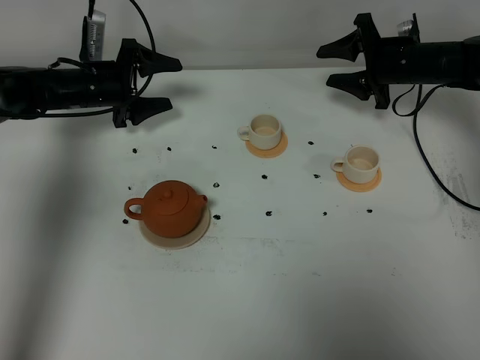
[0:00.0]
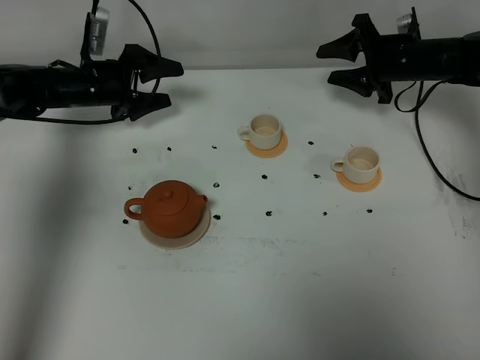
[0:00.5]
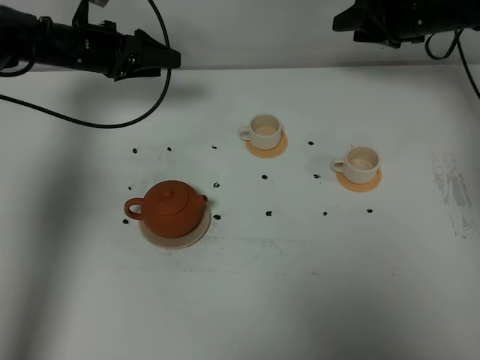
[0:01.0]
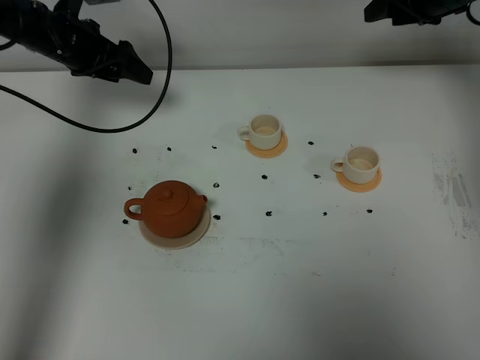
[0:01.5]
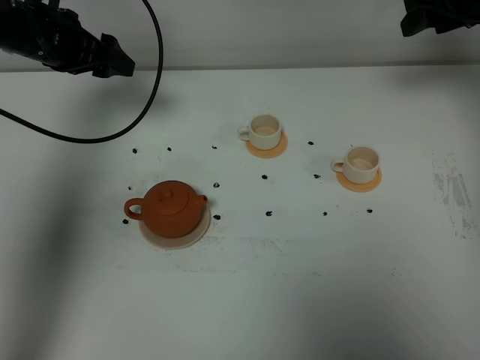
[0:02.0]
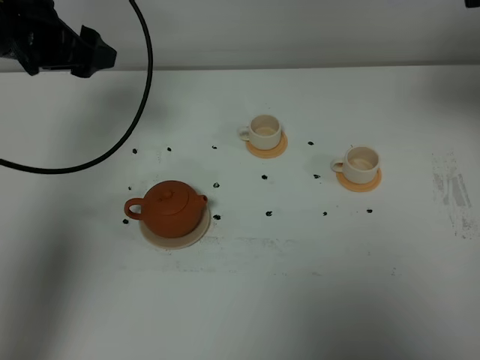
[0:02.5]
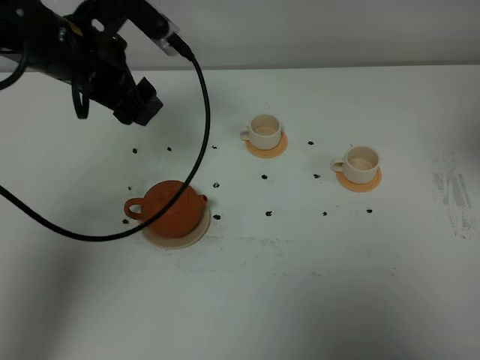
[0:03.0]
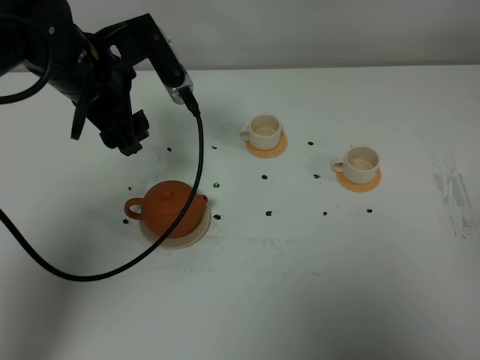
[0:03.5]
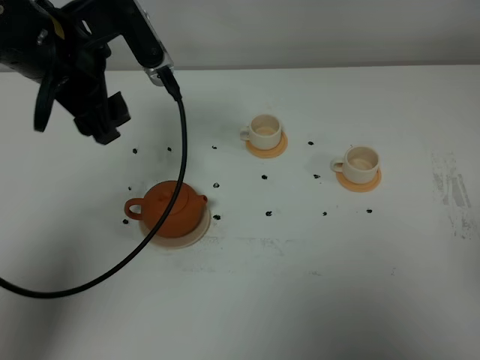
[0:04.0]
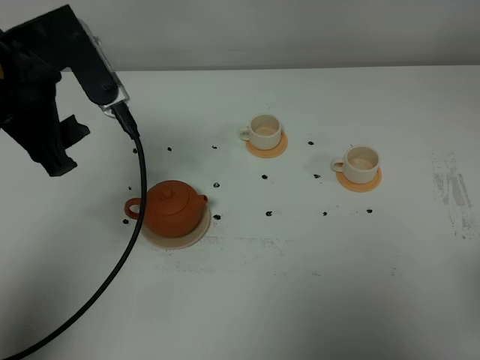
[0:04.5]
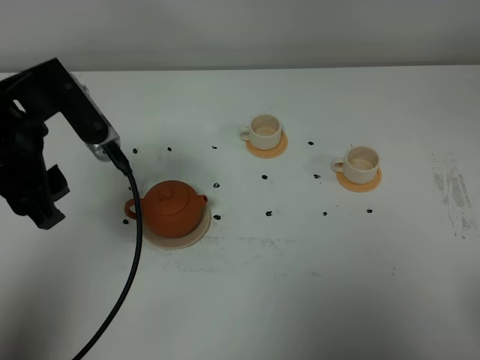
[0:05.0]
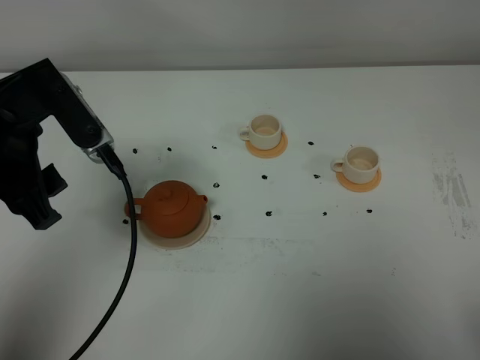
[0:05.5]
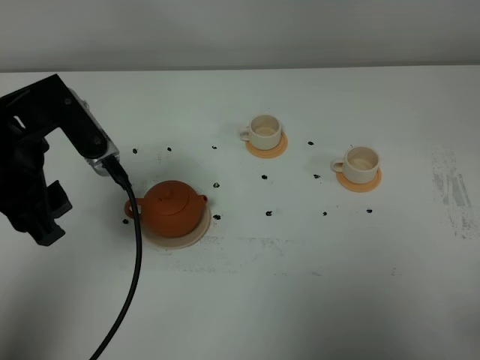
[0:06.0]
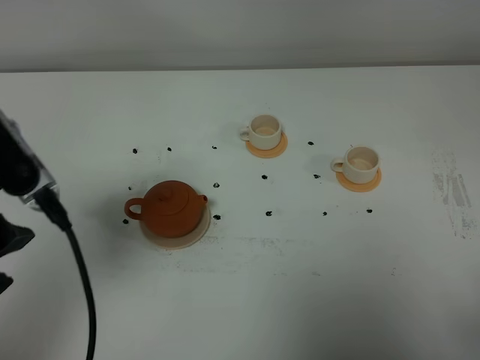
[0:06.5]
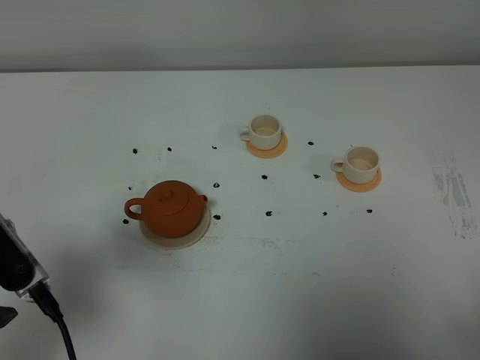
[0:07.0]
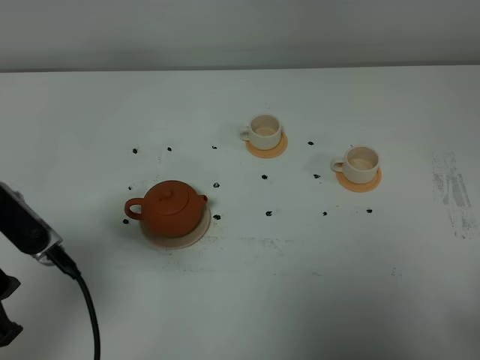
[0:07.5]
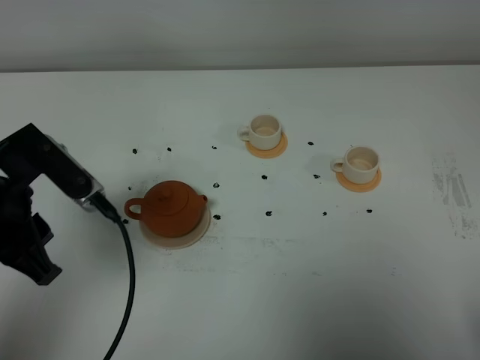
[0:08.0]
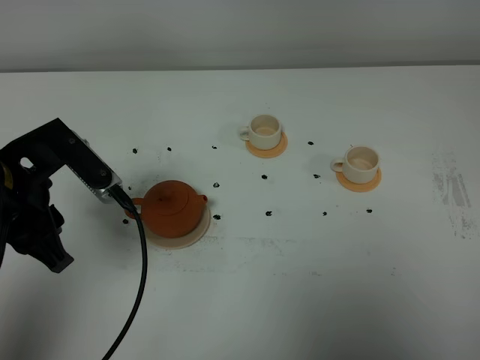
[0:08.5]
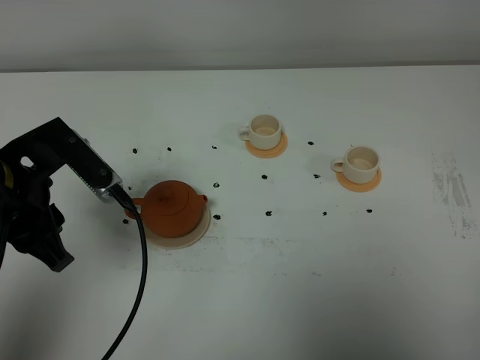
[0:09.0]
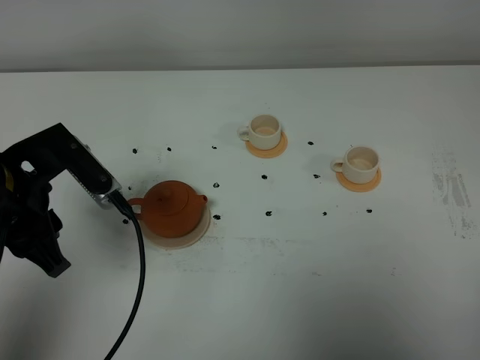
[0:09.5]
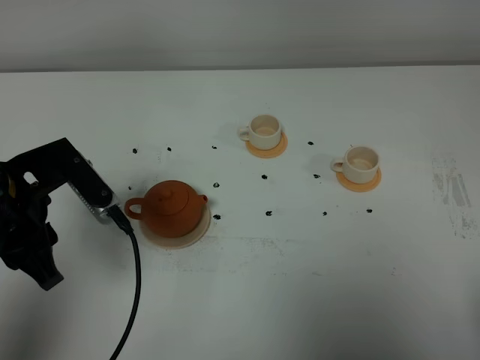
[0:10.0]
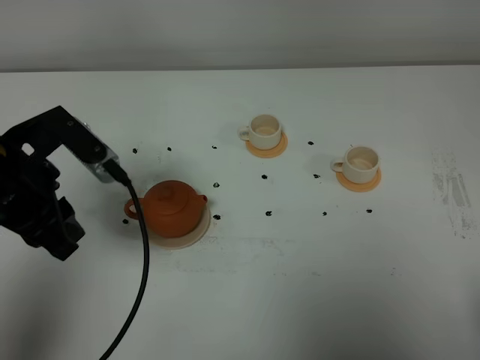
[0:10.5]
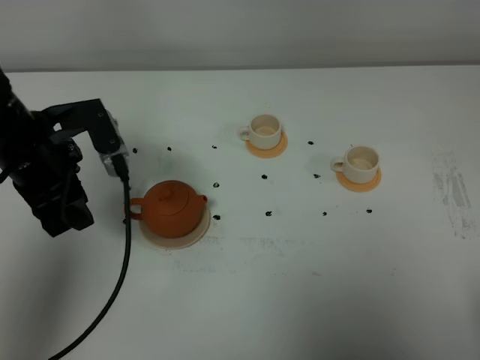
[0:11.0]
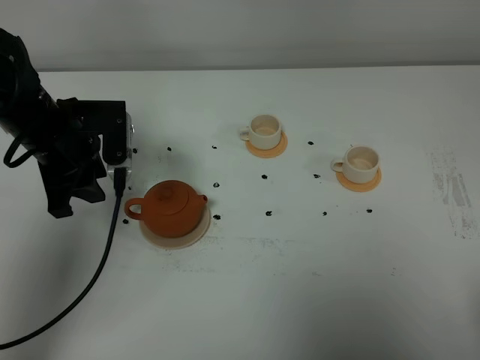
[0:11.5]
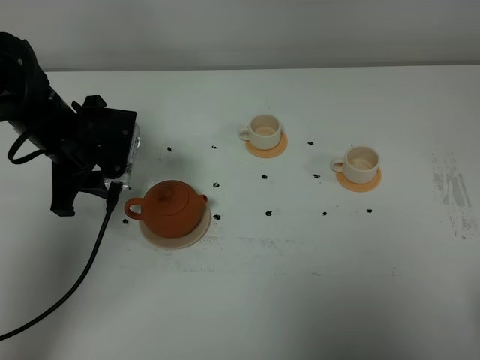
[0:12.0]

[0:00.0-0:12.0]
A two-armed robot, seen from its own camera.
Task of the whole recording: grasp the brown teapot and pour the tea into the two white teacups one by one, put the brown teapot back in its original place.
0:00.0 to 0:02.0: The two grippers go approximately 15 cm upward.
0:02.0 to 0:04.0: The right gripper travels backward by roughly 40 cm, while the left gripper goes some 15 cm backward, to the right and upward.
0:04.0 to 0:06.0: The left gripper moves backward, roughly 10 cm; the right gripper moves downward and backward, roughly 10 cm.
0:06.0 to 0:08.0: The left gripper travels backward and back again, approximately 10 cm each way.
0:08.0 to 0:10.0: There are only small adjustments of the grippers.
0:10.0 to 0:12.0: The left gripper travels forward by about 15 cm.

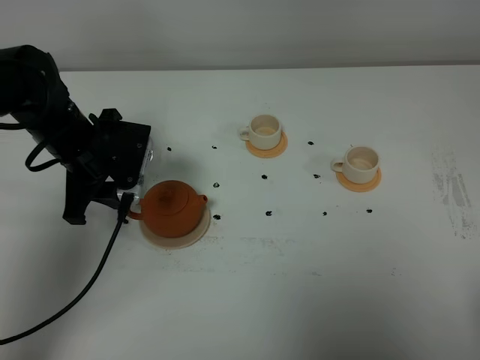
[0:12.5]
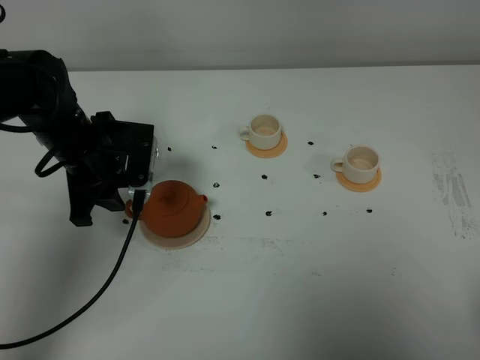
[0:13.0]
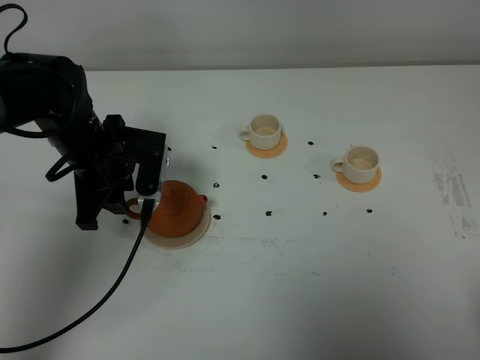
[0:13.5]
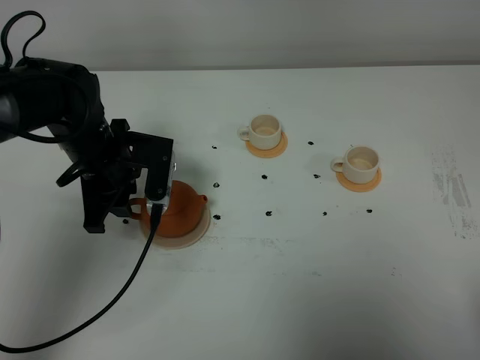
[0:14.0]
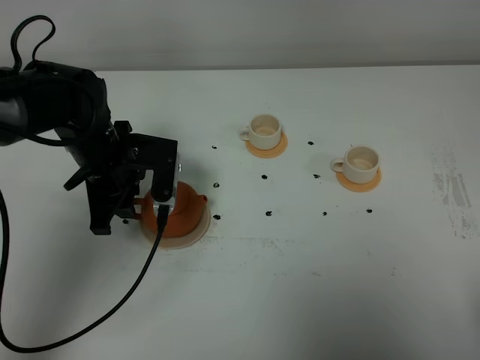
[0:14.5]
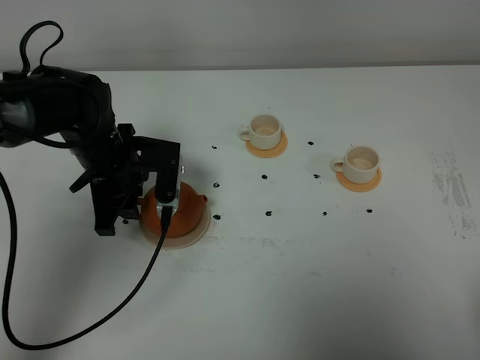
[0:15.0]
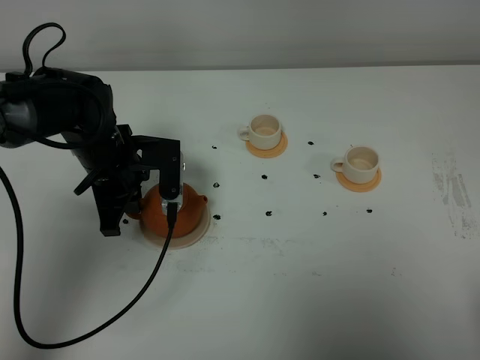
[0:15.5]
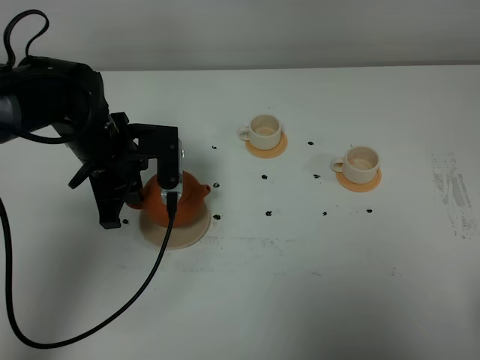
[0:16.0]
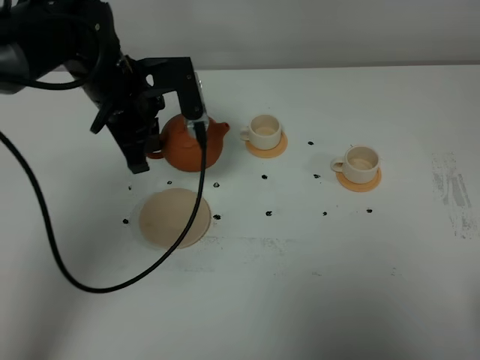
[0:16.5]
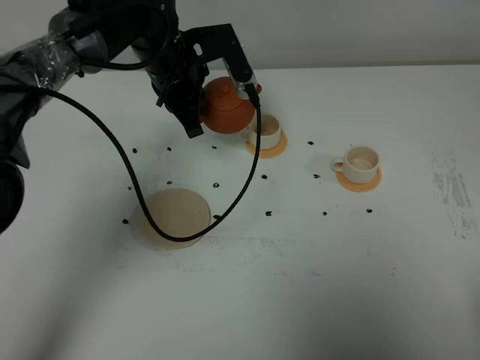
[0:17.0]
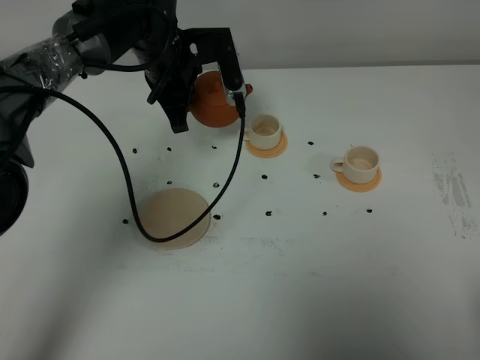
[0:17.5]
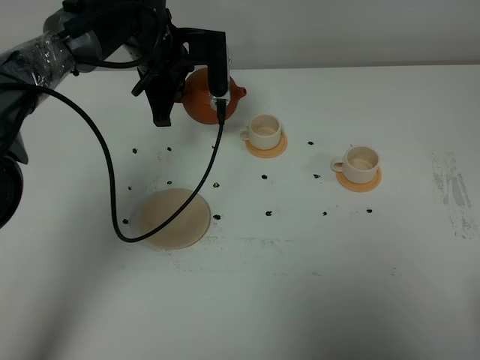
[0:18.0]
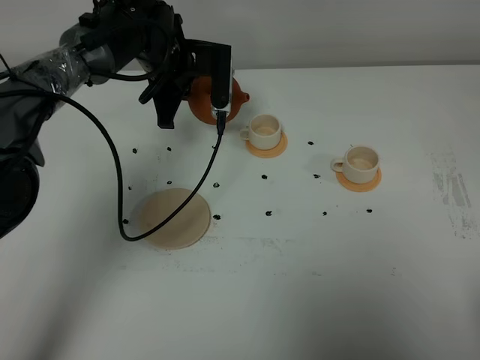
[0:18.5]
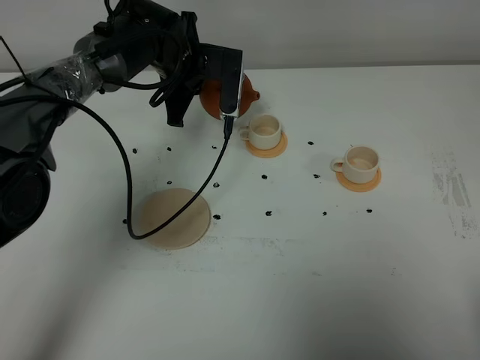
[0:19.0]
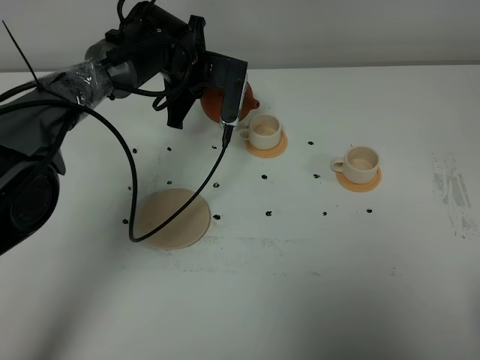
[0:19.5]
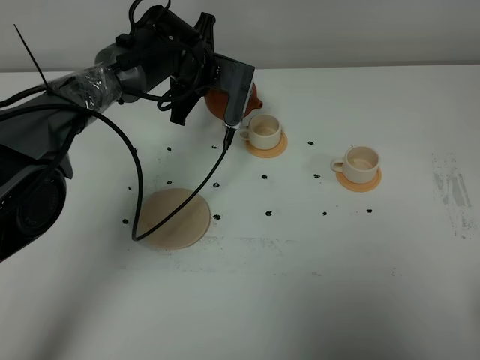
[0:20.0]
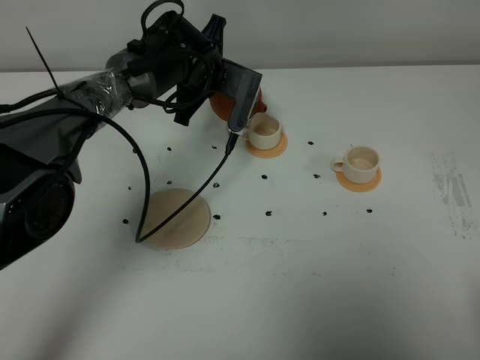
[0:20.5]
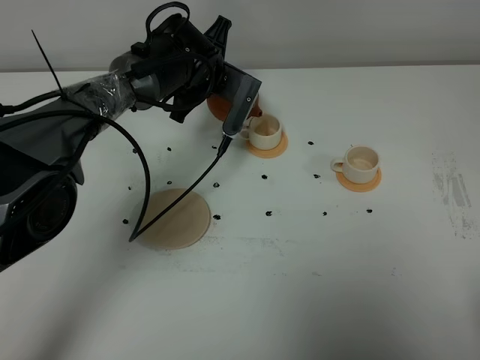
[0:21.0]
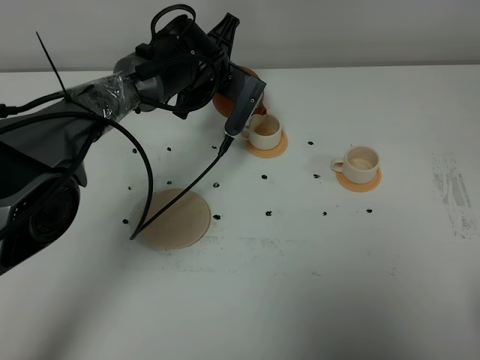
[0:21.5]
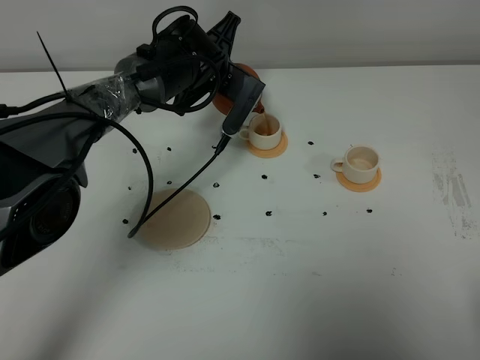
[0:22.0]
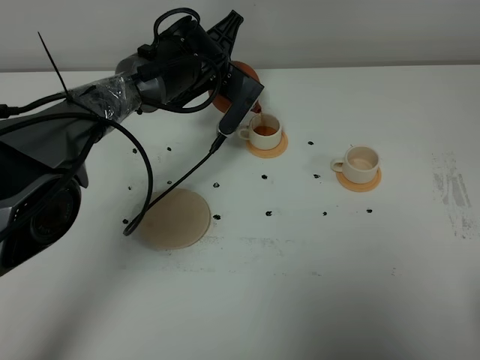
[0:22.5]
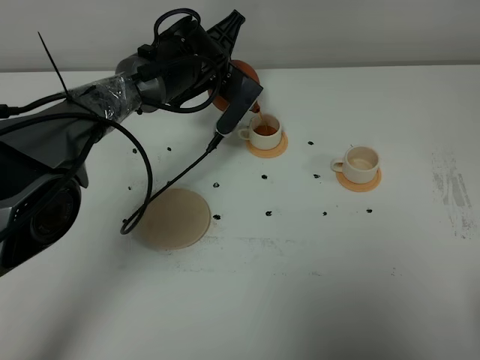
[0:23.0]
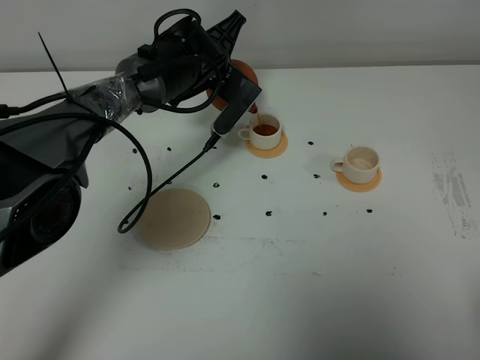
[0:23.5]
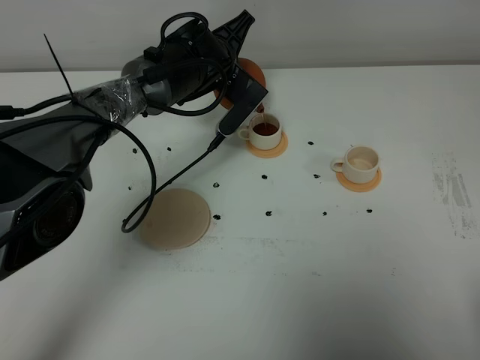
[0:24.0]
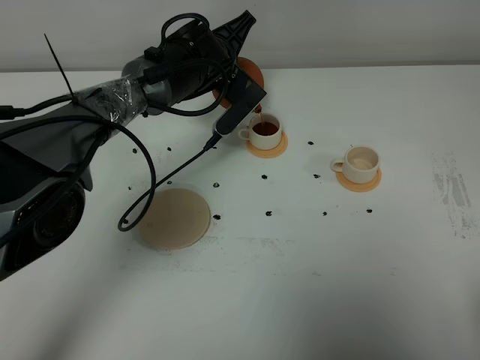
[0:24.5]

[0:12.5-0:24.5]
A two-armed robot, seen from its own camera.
Task of the whole recording: grasp the brown teapot and pour the tea into the two white teacups one by one, put the brown teapot back in its original place.
Step, 0:12.5 to 0:15.5: Pick up the teapot with the left gripper.
0:12.5 to 0:14.5: The grippers move only a little.
0:14.5 to 0:16.5: The left gripper moves upward, approximately 5 cm, and closes up.
0:16.5 to 0:18.5: The left gripper shifts about 10 cm forward.
0:20.5 to 0:22.5: The grippers stay close to where they were, moving slightly.
0:22.5 to 0:24.5: There are only small adjustments of the grippers.

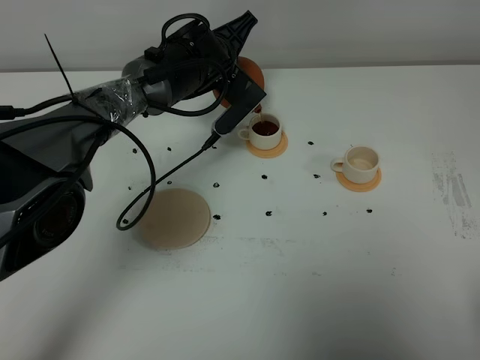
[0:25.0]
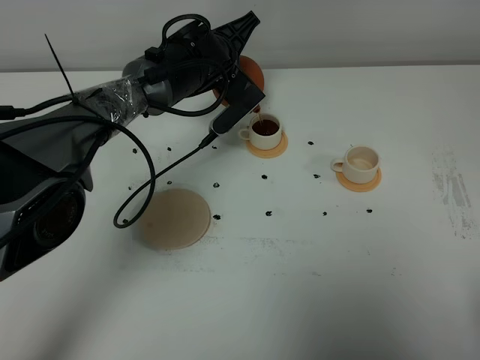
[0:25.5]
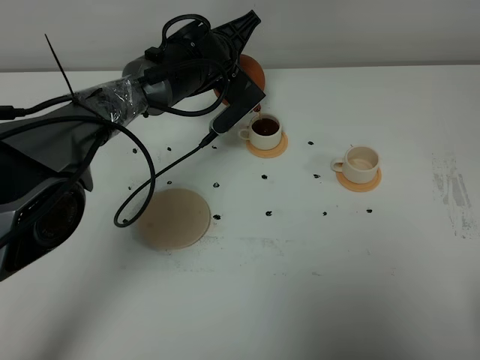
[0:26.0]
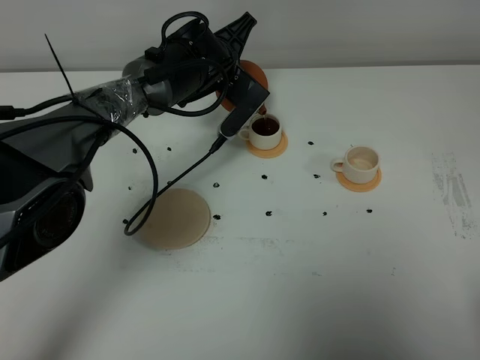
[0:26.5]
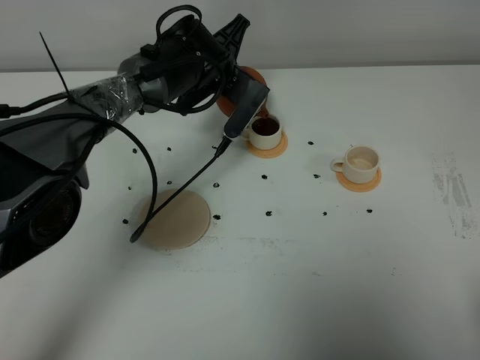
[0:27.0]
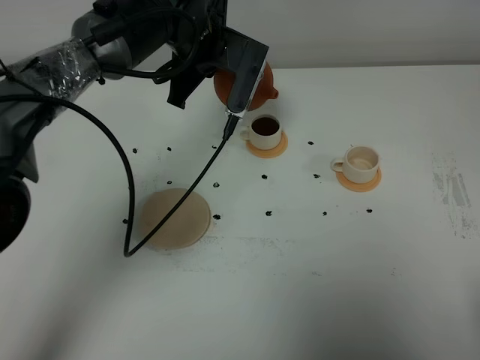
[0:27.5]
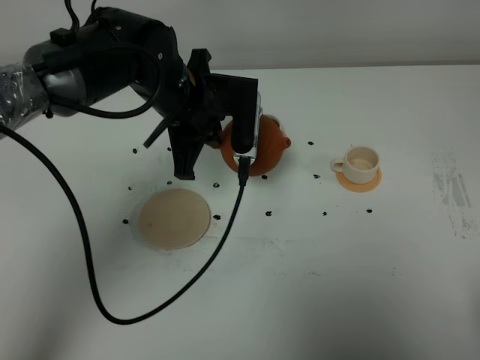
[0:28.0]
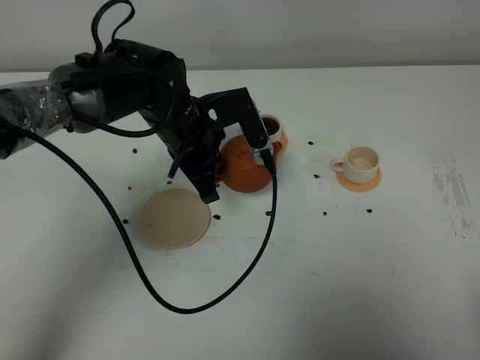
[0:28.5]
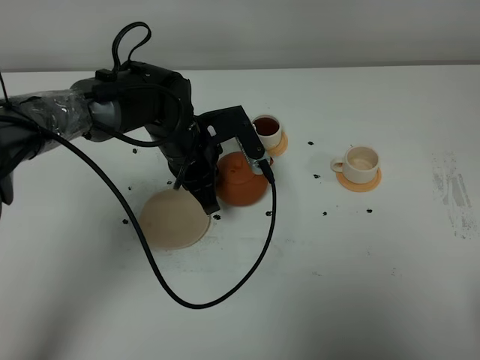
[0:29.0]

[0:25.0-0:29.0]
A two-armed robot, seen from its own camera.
Task of the whole recording: grasp the brown teapot and pour the tea into the two white teacups one by one, put the brown teapot back in its original place.
Step, 0:25.0 to 0:27.0: Pour tea into the teacup with the left gripper.
0:25.0 to 0:27.0: There are only small adjustments of the grippers.
0:27.0 to 0:29.0: The left gripper shifts some 10 cm backward.
